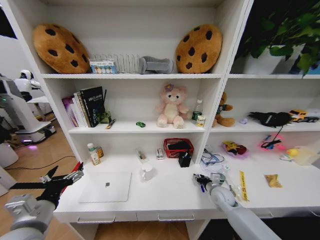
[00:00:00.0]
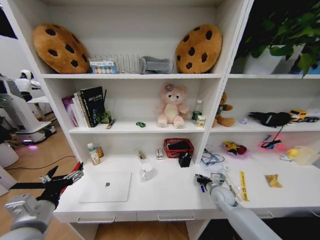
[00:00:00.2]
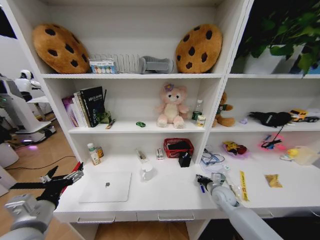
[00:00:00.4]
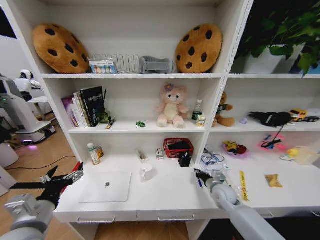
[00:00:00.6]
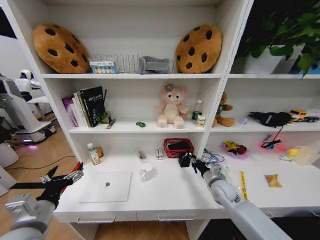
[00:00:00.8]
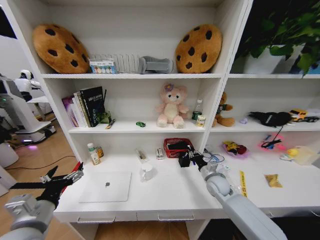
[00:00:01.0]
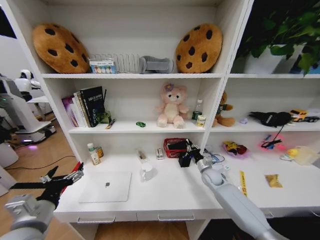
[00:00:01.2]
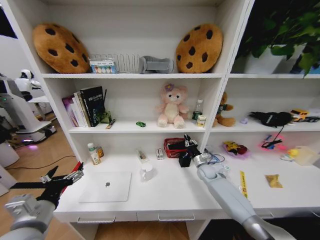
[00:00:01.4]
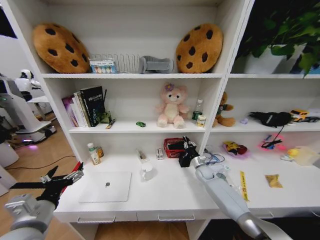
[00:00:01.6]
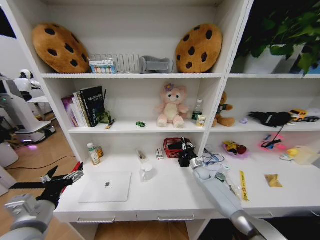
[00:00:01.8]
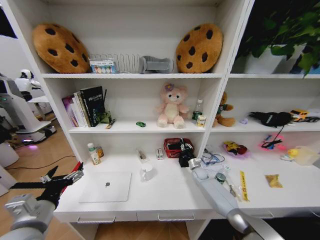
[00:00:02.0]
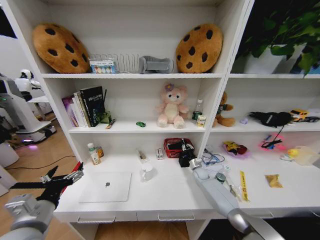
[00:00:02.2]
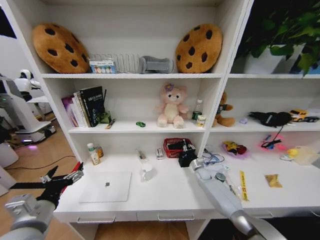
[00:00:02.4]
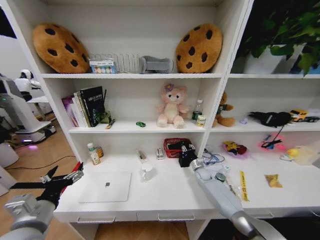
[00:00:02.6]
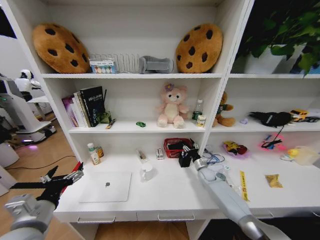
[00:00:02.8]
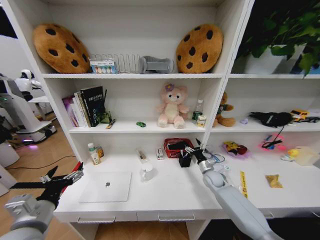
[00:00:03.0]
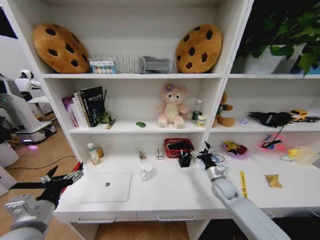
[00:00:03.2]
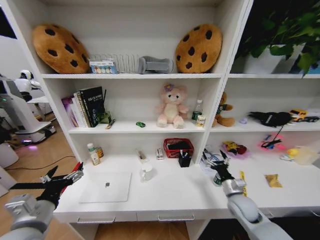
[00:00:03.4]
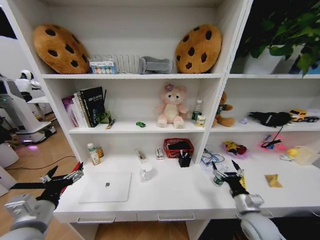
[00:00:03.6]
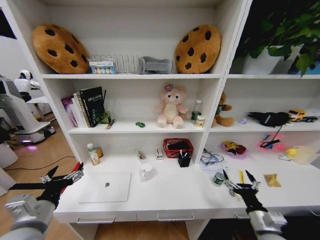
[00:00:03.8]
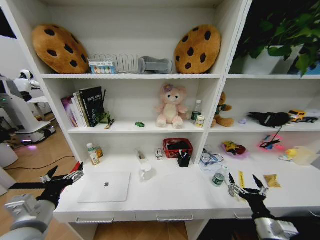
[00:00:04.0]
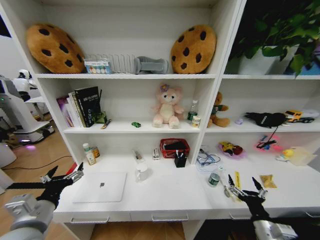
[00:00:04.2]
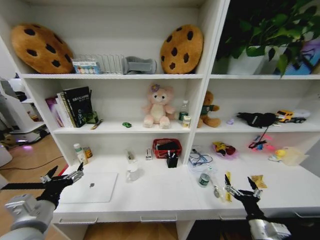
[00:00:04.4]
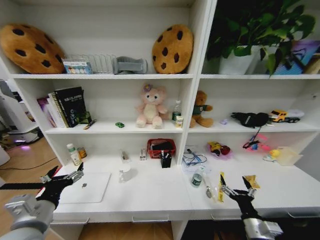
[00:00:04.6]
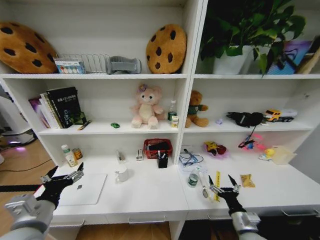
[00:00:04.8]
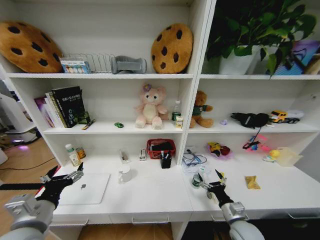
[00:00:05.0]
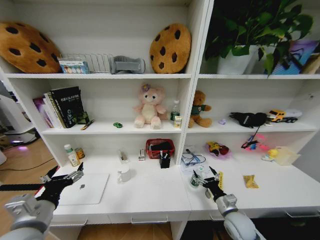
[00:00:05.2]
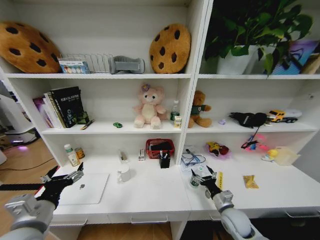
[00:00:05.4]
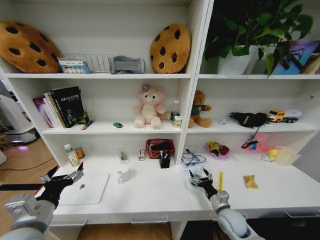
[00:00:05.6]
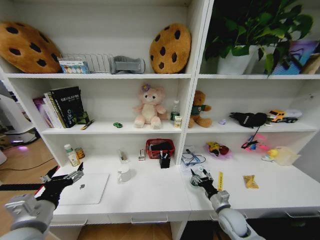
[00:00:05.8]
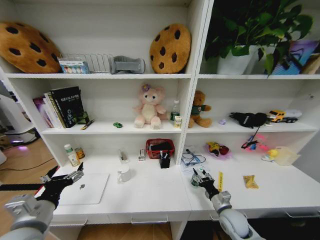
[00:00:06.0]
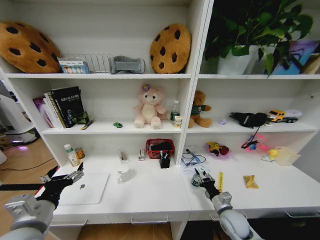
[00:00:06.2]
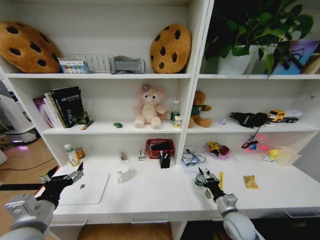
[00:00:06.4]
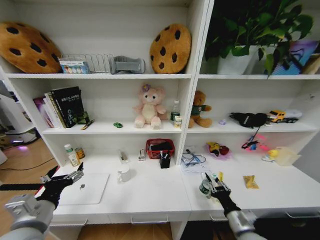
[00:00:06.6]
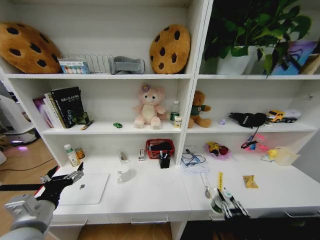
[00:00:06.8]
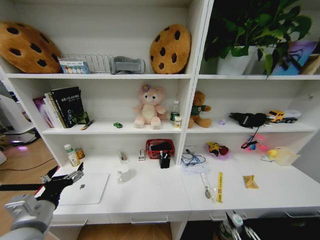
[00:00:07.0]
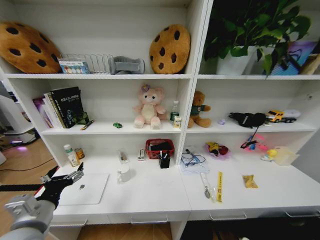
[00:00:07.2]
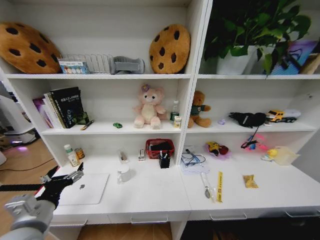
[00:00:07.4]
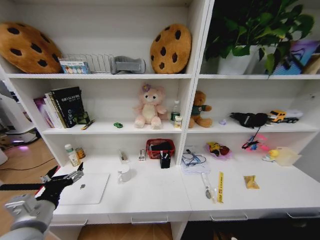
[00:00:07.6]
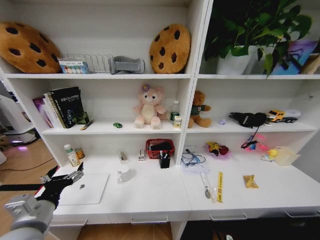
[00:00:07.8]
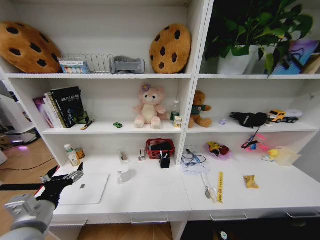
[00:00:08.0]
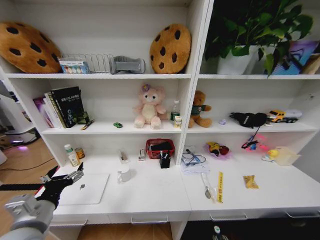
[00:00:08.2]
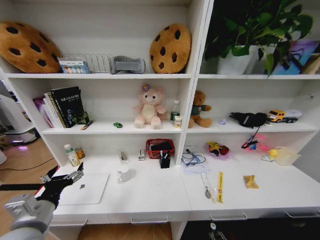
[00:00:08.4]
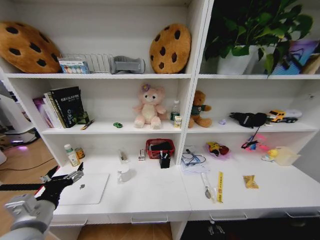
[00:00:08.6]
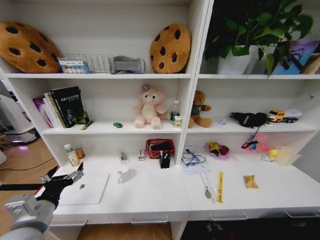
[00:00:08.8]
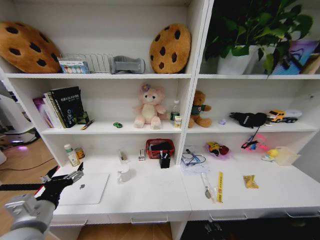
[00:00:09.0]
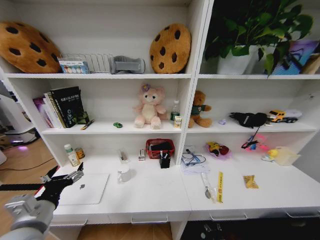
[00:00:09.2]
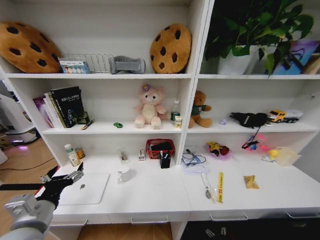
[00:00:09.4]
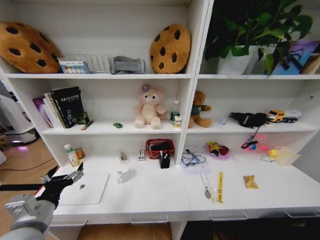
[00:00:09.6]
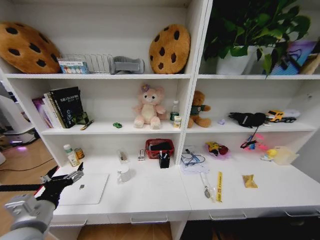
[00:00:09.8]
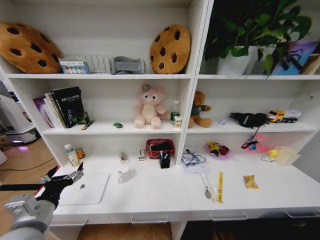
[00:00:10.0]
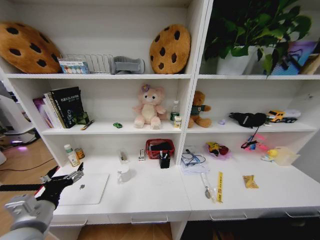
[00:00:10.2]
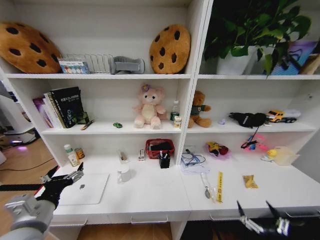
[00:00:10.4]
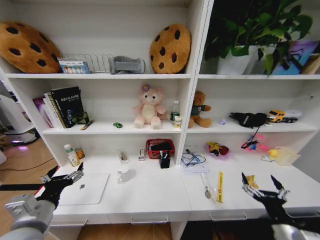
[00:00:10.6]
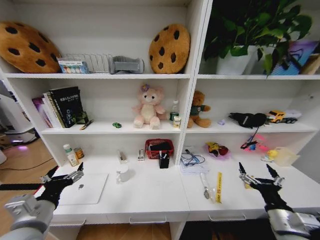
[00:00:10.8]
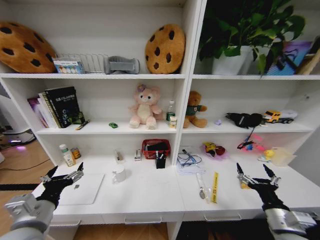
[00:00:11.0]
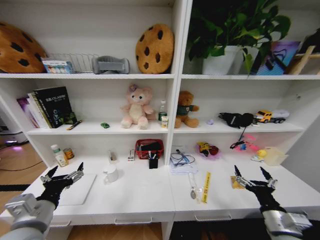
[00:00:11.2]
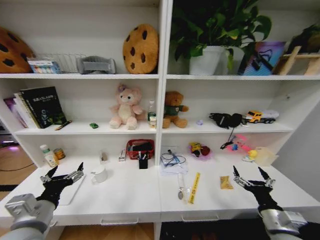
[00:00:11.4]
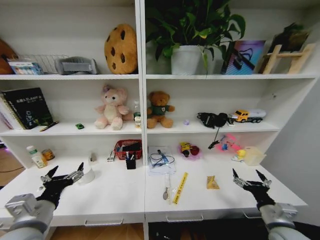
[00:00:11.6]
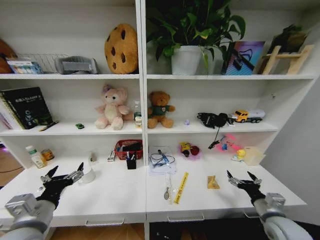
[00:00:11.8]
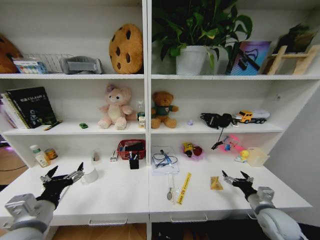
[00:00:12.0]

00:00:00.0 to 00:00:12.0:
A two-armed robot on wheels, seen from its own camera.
Task of the whole recording: Organize the objects on the table.
00:00:00.0 to 00:00:01.6: The right gripper heads forward, covering roughly 15 cm, and closes.
00:00:01.6 to 00:00:03.0: The right gripper opens its fingers.
00:00:03.0 to 00:00:04.4: The right gripper travels backward by about 30 cm.
00:00:04.4 to 00:00:06.0: The right gripper moves forward and downward, some 15 cm, and closes up.
00:00:06.0 to 00:00:07.6: The right gripper is displaced backward and downward by roughly 35 cm.
00:00:07.6 to 00:00:09.0: The right gripper travels forward and downward by approximately 20 cm.
00:00:09.0 to 00:00:10.4: The right gripper is displaced upward by some 35 cm, and opens.
00:00:10.4 to 00:00:12.0: The right gripper travels forward by roughly 20 cm.

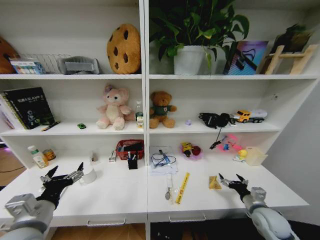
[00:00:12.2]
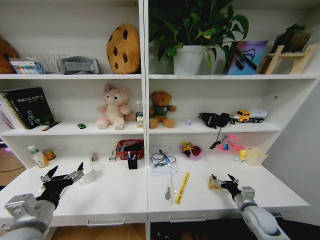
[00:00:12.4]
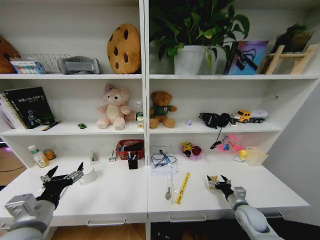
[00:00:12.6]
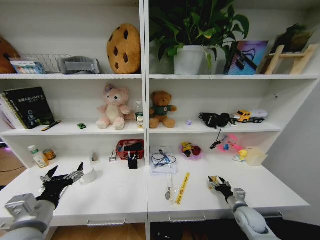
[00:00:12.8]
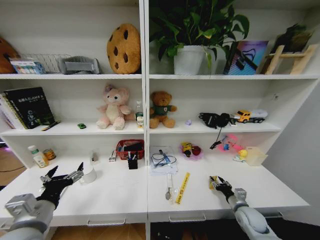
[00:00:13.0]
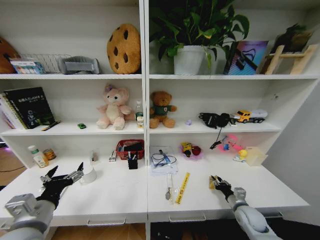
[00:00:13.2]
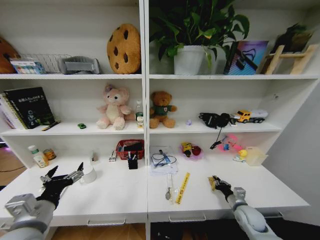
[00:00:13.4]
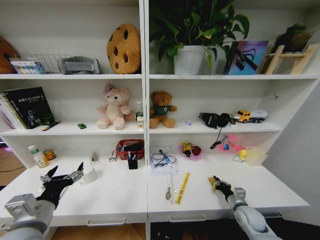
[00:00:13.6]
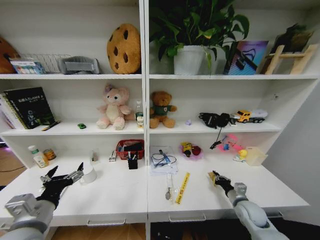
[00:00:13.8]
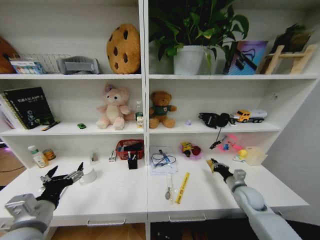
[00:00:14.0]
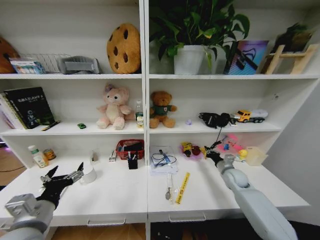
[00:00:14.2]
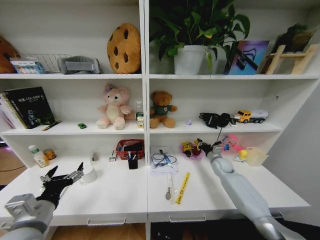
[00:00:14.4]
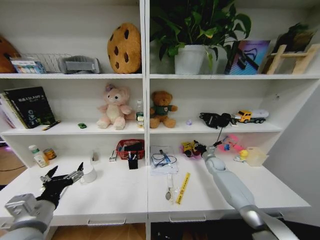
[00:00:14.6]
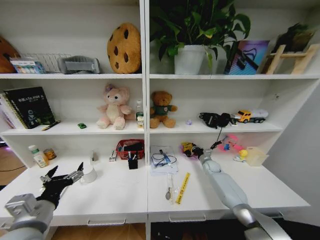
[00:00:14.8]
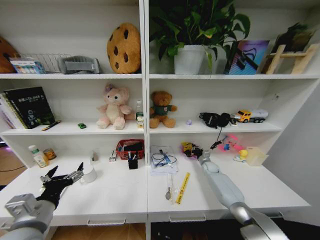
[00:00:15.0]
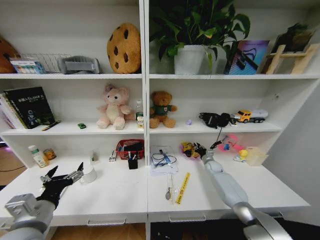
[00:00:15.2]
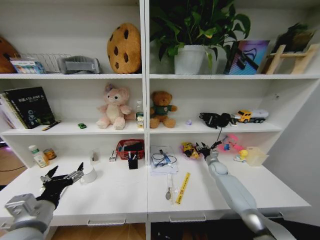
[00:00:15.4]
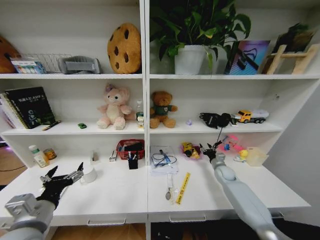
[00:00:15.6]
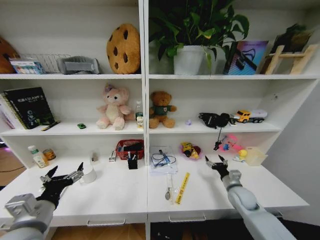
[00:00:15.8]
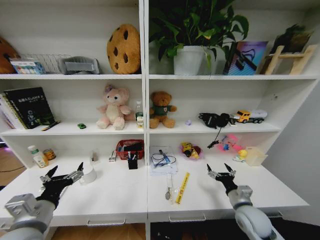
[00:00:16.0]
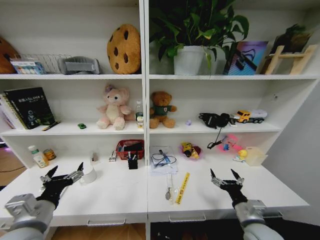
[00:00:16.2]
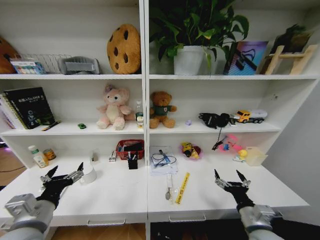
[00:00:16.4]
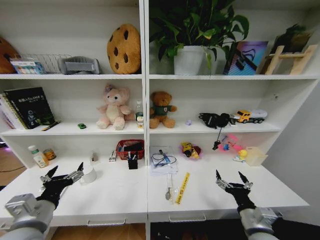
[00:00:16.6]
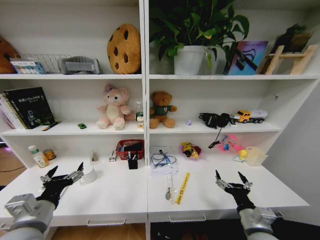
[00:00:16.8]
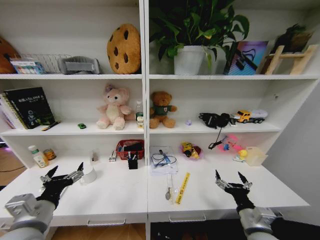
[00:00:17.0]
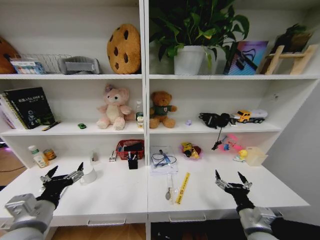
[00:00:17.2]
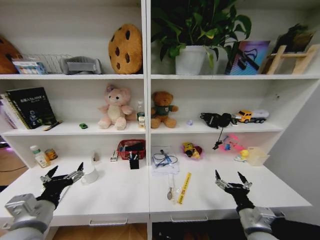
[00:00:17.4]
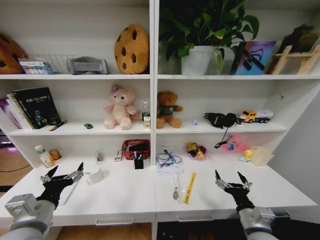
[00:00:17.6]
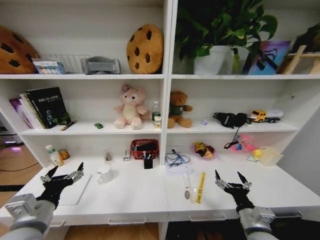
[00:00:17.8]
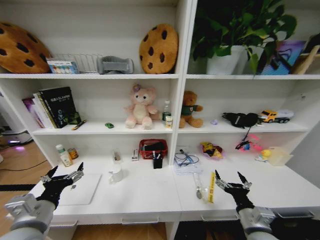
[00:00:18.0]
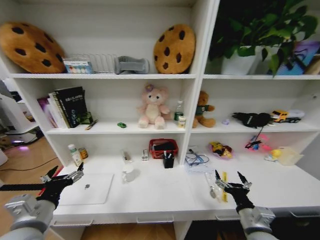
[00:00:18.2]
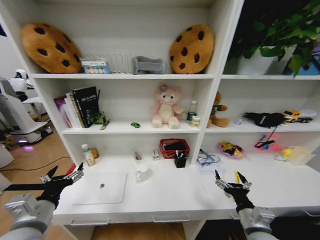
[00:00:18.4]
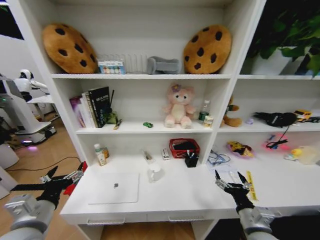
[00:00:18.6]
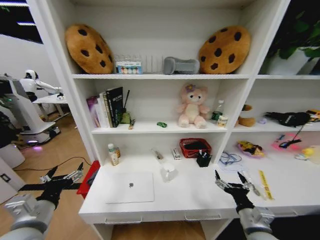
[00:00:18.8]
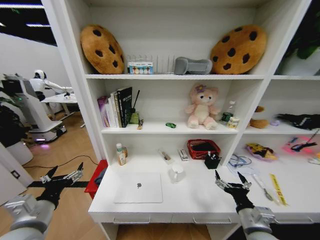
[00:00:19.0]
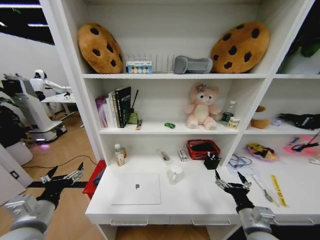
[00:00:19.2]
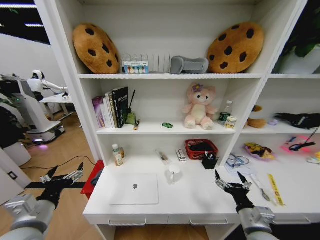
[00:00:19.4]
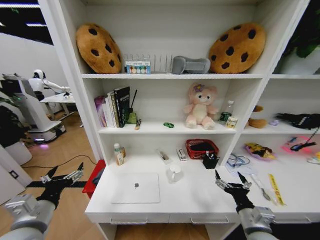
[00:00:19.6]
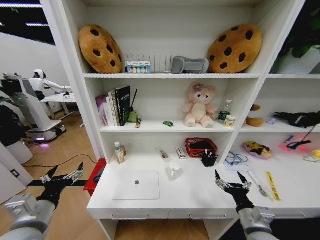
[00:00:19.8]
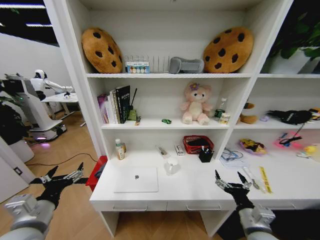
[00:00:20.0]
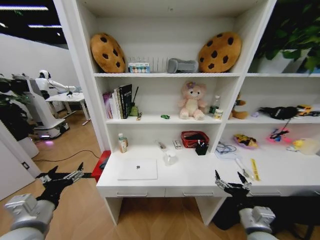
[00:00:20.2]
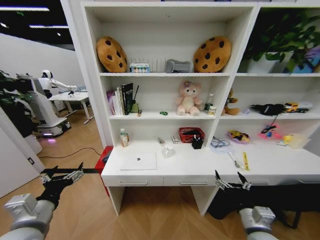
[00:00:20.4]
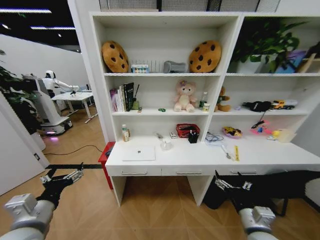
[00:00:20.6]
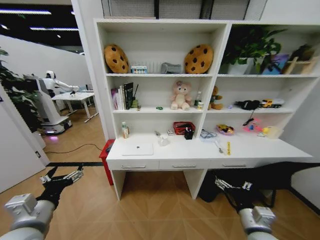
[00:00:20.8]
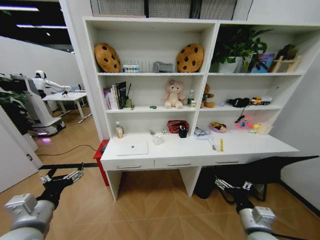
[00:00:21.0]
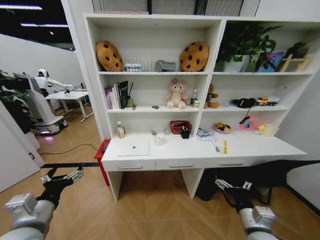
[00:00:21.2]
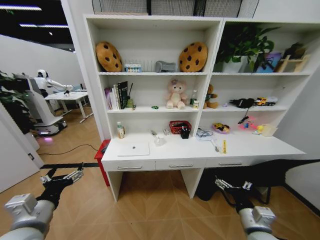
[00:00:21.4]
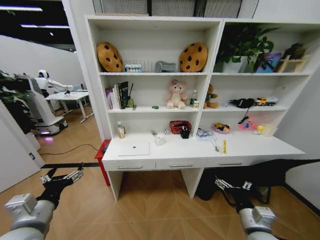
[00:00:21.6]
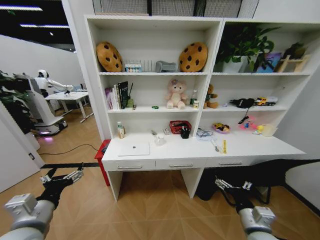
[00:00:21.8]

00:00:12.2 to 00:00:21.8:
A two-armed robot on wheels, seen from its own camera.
Task of the whole recording: Organize the objects on the table.
00:00:12.2 to 00:00:13.8: The right gripper moves roughly 5 cm, and closes its fingers.
00:00:13.8 to 00:00:15.4: The right gripper travels forward by about 25 cm, and opens its fingers.
00:00:15.4 to 00:00:17.0: The right gripper is displaced backward by approximately 35 cm, and opens up.
